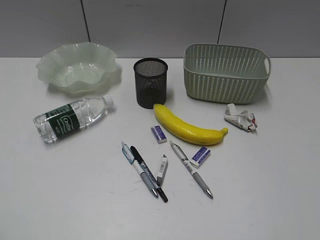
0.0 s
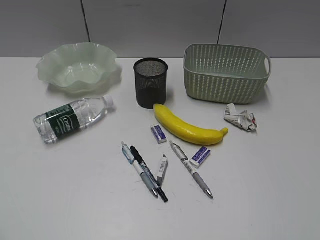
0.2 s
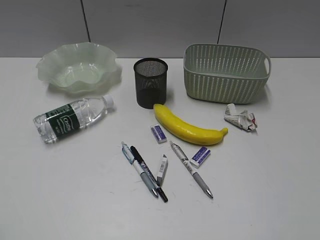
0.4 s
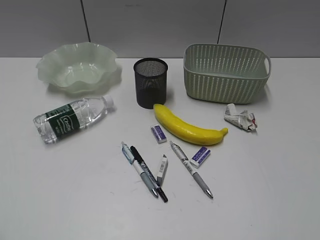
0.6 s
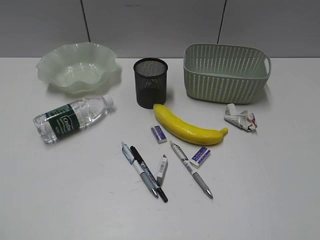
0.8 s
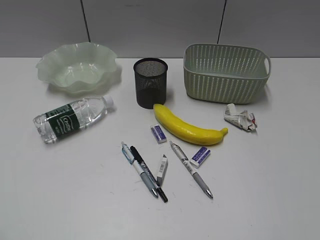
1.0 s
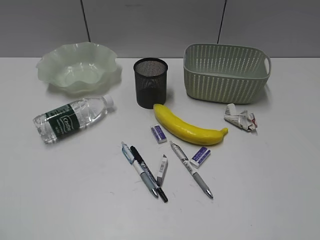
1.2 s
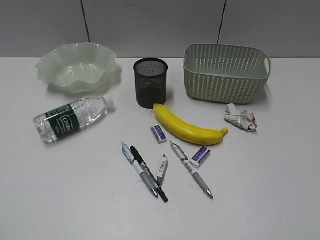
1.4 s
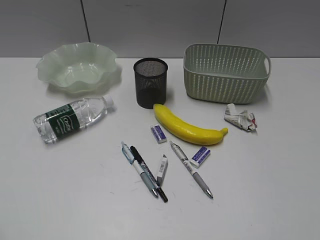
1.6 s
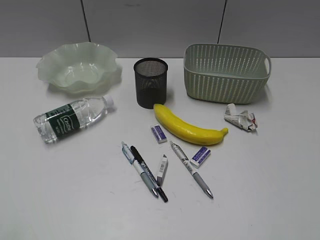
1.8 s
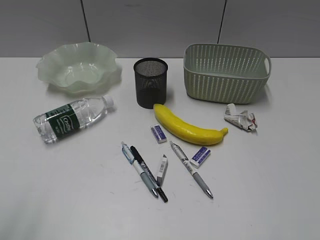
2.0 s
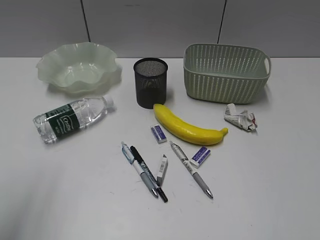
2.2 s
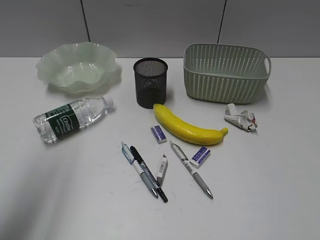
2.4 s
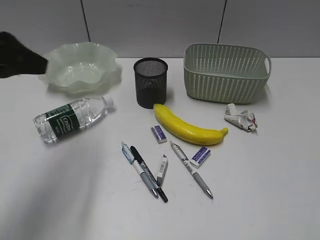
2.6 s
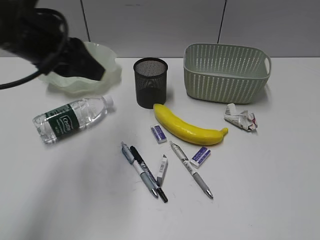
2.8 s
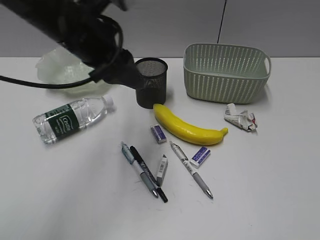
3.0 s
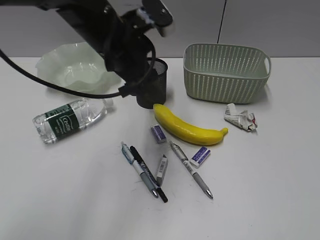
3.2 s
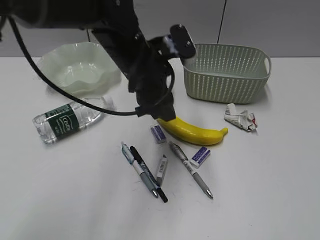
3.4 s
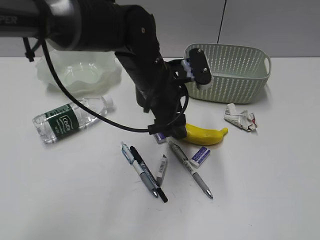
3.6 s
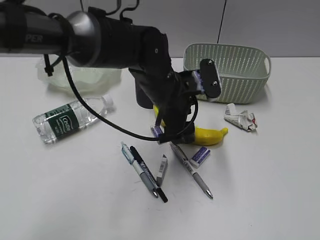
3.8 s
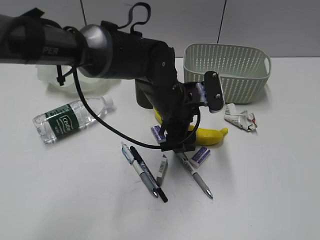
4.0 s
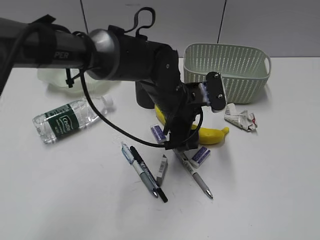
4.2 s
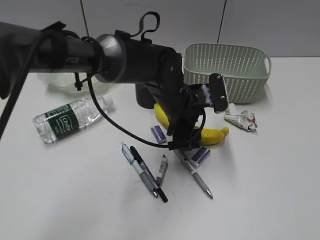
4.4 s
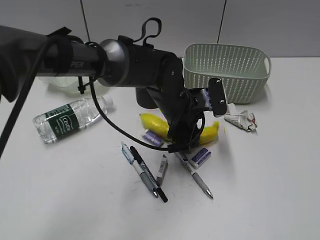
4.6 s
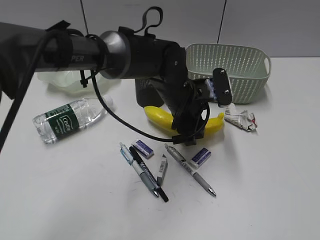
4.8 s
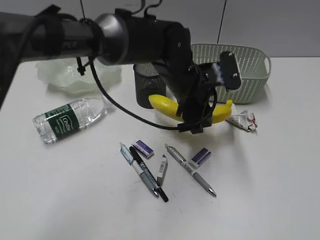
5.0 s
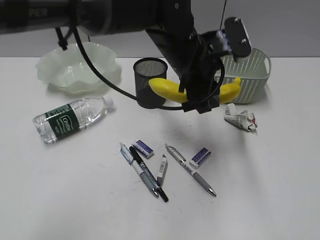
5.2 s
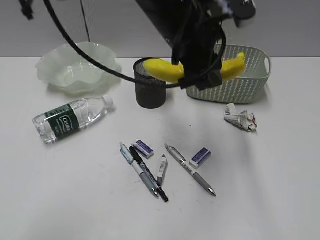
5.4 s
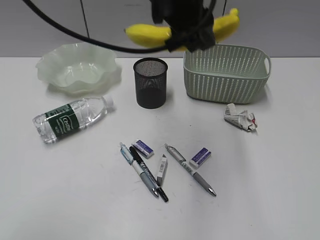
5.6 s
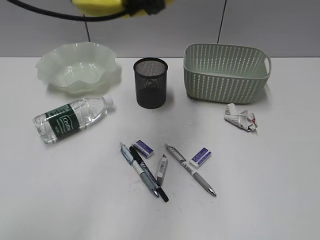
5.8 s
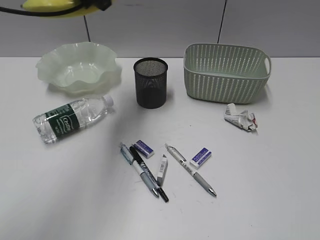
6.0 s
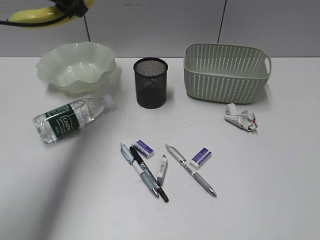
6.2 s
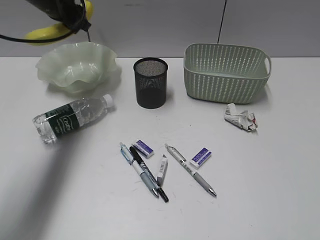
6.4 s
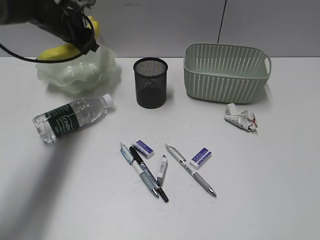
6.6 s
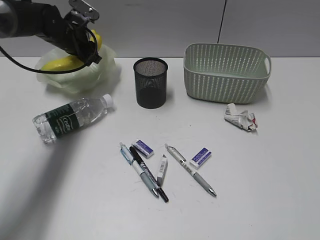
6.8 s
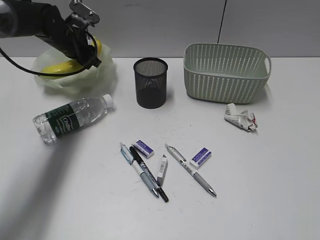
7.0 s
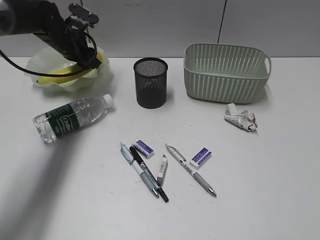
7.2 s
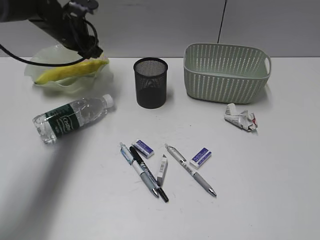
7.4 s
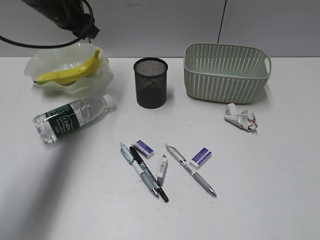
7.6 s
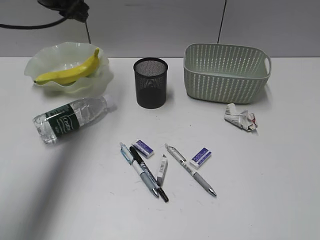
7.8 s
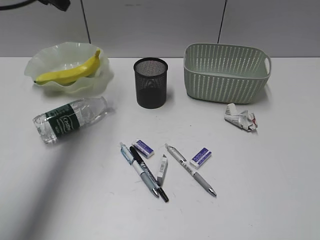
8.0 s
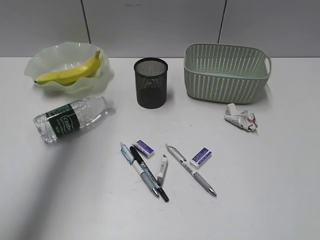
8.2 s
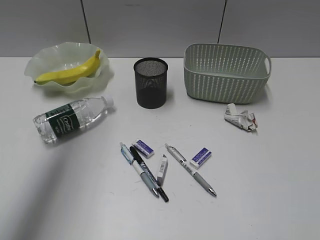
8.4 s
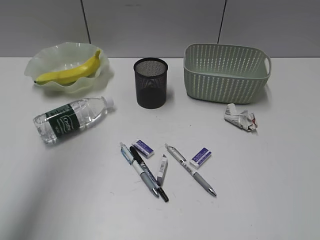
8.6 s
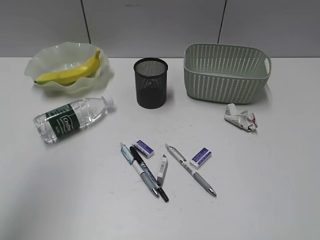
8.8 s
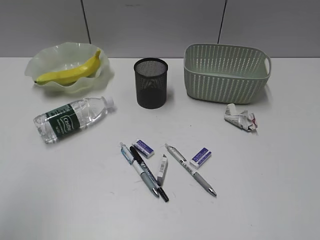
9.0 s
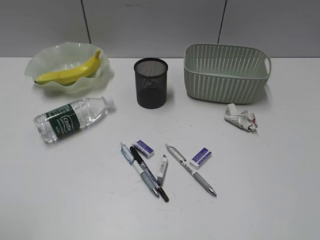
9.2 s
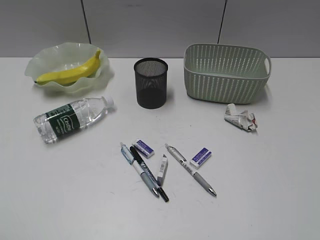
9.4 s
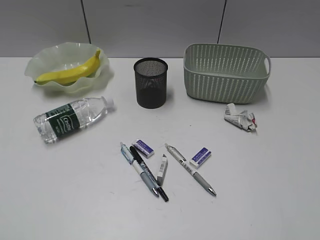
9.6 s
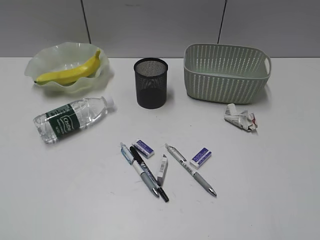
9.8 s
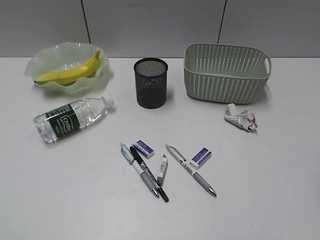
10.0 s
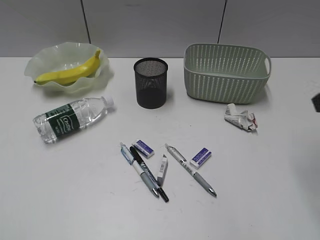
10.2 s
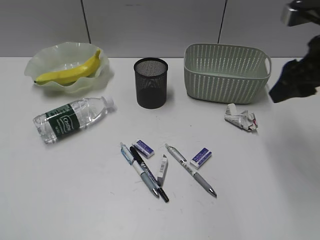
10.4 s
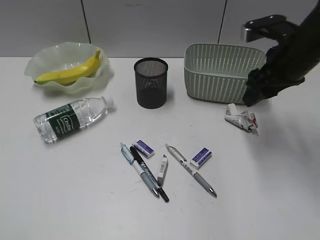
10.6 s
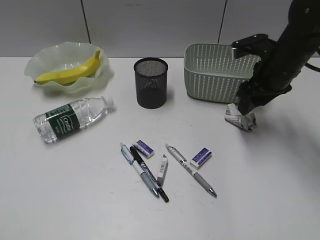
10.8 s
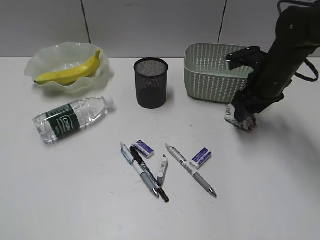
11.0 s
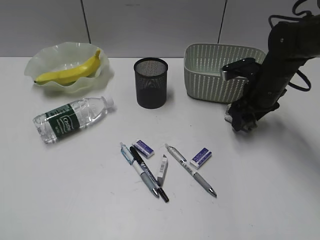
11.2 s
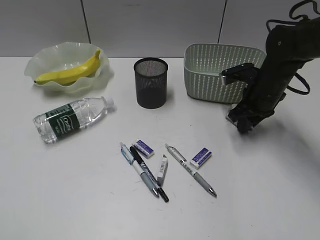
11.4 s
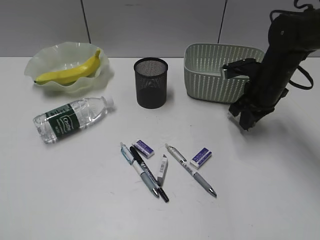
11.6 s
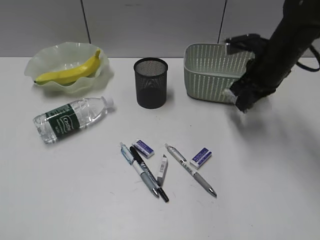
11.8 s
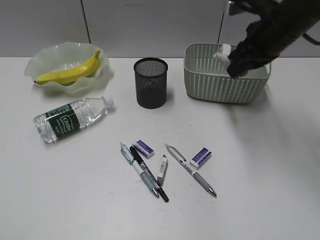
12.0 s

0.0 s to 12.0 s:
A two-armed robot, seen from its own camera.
Step, 1.6 to 4.6 s: Grasp the banana with left gripper.
Step, 4.8 to 7.4 s: Place the banana in the plate with left gripper.
Step, 7.6 to 11.4 s: Grasp the waste paper with right gripper.
1.6 to 3.0 s: The left gripper is displaced forward and to the right by roughly 40 cm, and opens.
3.0 to 4.4 s: The left gripper is displaced to the right and downward by about 20 cm.
4.4 to 6.0 s: The left gripper heads upward and to the left, covering about 25 cm, and closes its fingers.
6.0 to 7.6 s: The left gripper travels downward, forward and to the left by roughly 20 cm.
7.6 to 9.0 s: The left gripper shifts roughly 40 cm backward.
9.0 to 10.4 s: The right gripper is displaced forward by about 30 cm. The left gripper is displaced downward and backward by about 15 cm.
10.4 to 12.0 s: The right gripper goes approximately 10 cm forward and to the left, moves approximately 15 cm downward and comes back, and closes up.

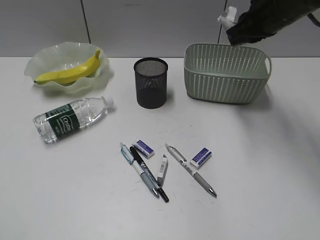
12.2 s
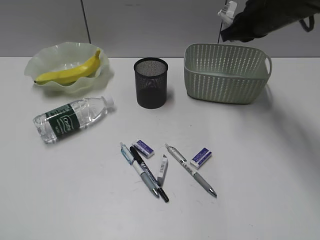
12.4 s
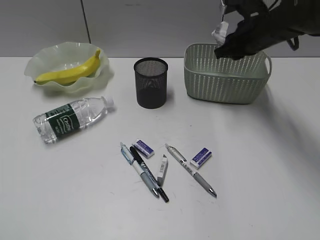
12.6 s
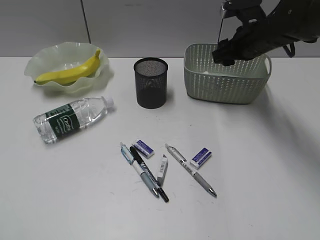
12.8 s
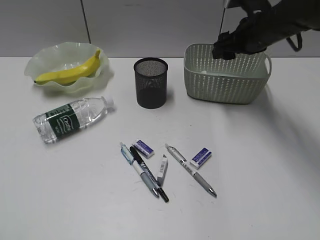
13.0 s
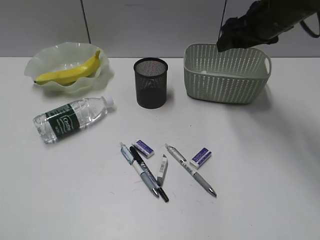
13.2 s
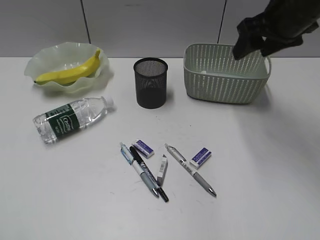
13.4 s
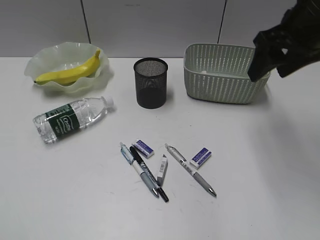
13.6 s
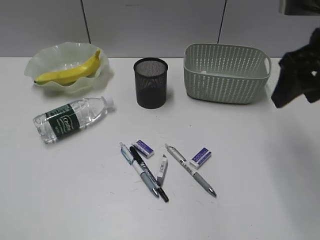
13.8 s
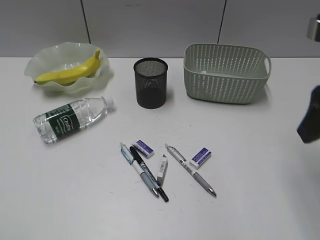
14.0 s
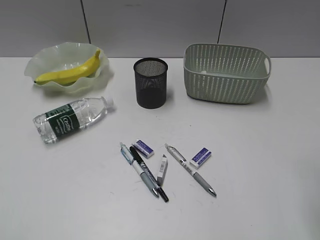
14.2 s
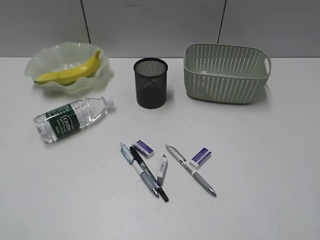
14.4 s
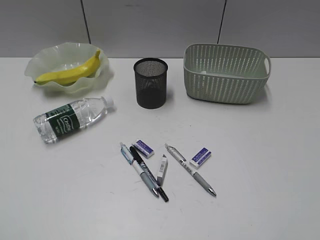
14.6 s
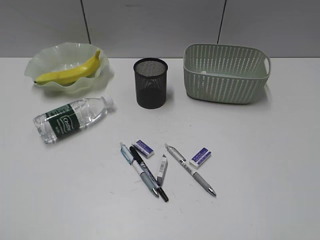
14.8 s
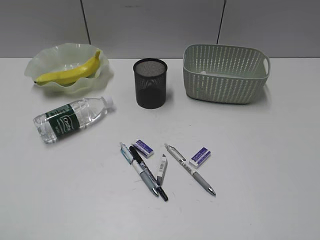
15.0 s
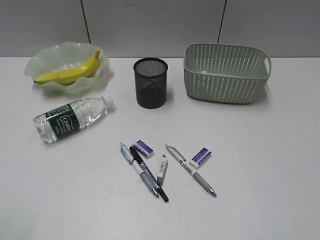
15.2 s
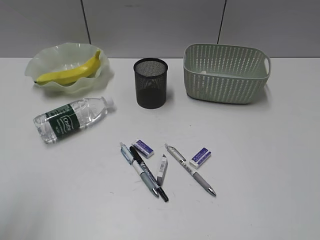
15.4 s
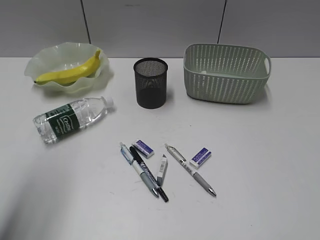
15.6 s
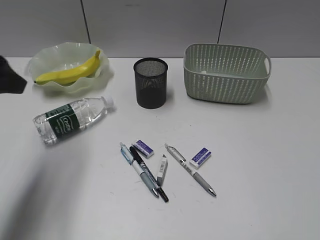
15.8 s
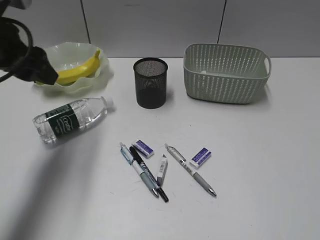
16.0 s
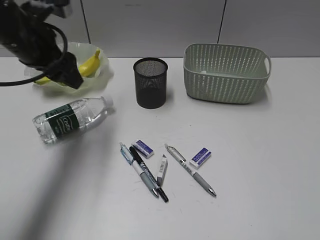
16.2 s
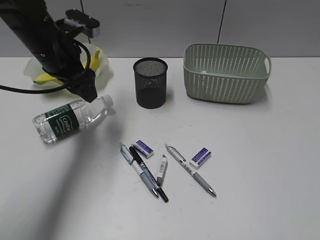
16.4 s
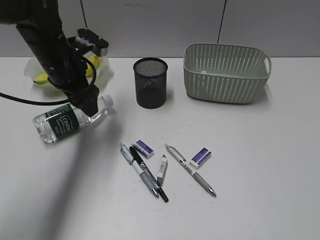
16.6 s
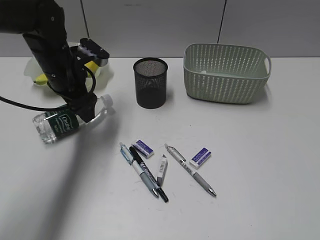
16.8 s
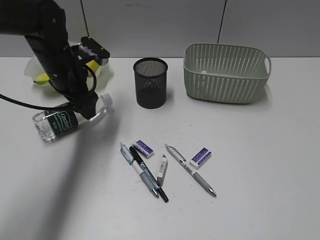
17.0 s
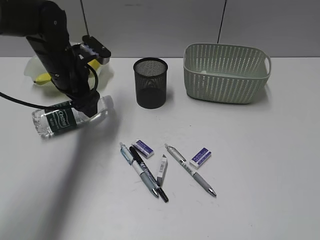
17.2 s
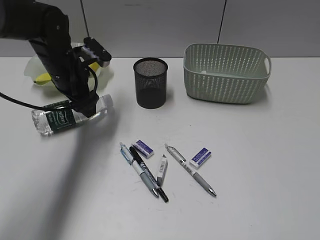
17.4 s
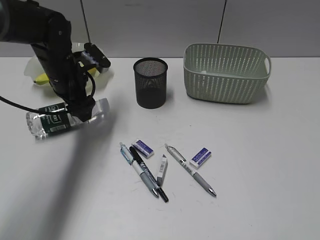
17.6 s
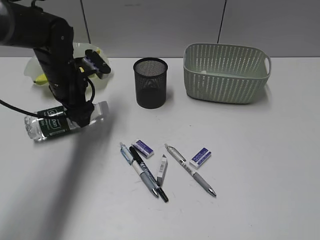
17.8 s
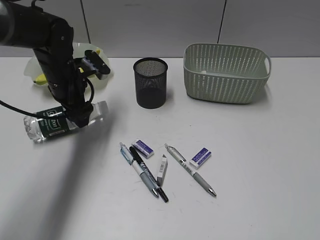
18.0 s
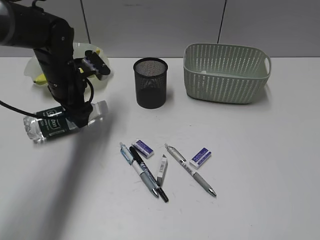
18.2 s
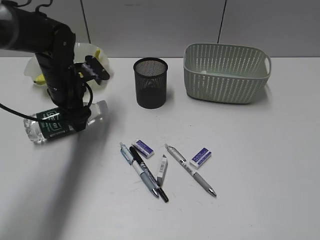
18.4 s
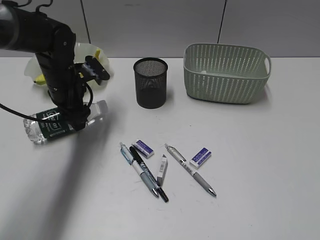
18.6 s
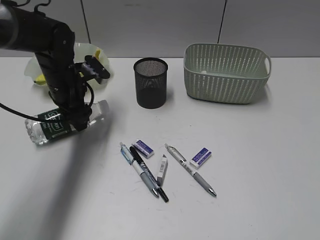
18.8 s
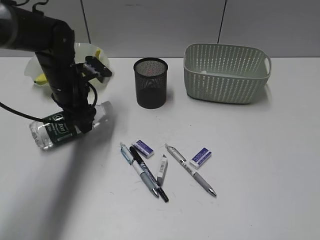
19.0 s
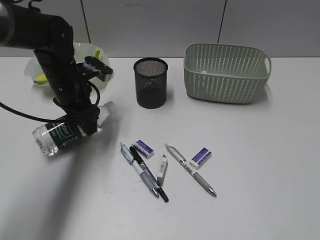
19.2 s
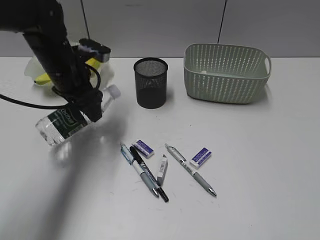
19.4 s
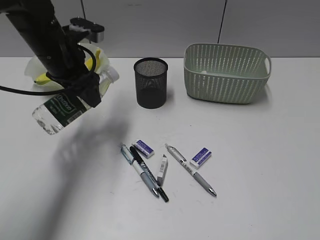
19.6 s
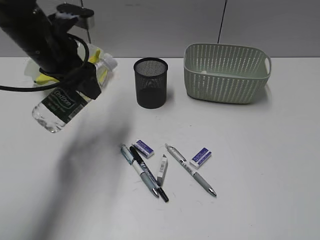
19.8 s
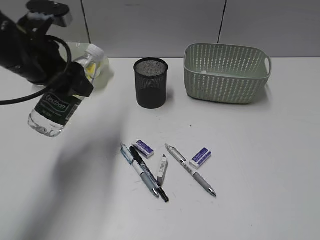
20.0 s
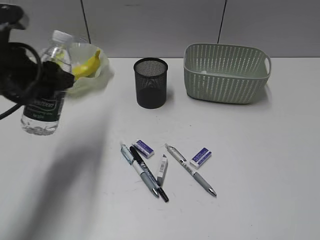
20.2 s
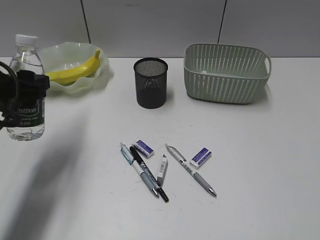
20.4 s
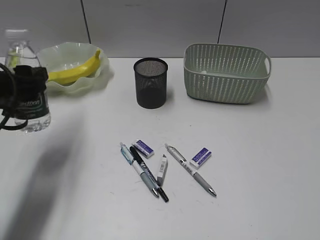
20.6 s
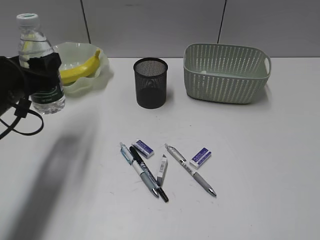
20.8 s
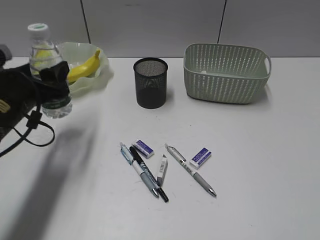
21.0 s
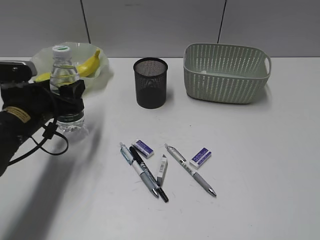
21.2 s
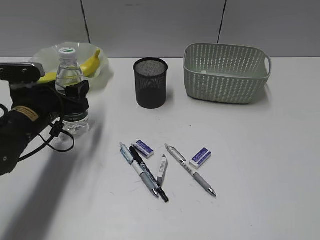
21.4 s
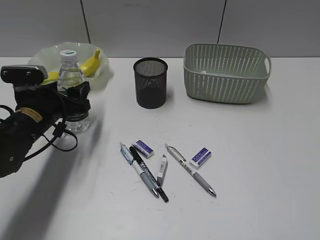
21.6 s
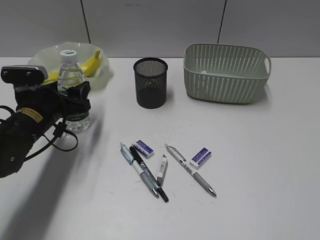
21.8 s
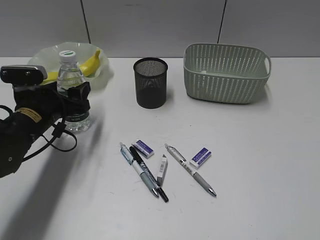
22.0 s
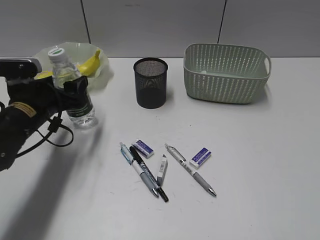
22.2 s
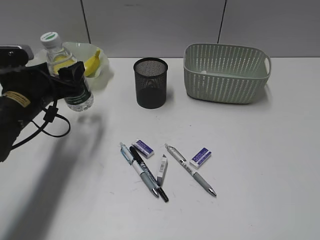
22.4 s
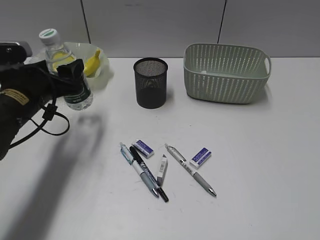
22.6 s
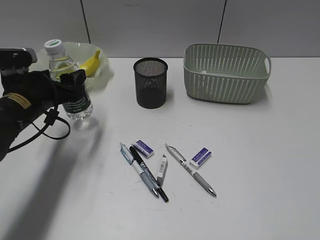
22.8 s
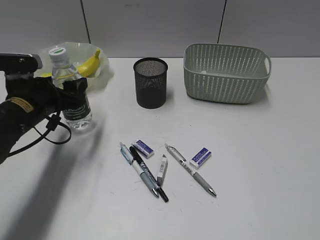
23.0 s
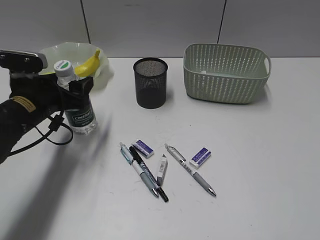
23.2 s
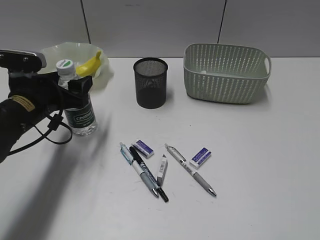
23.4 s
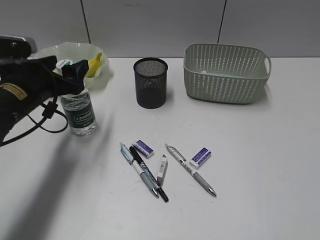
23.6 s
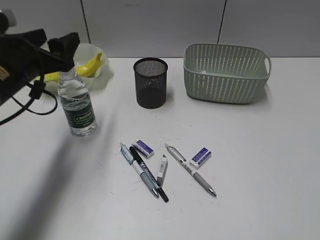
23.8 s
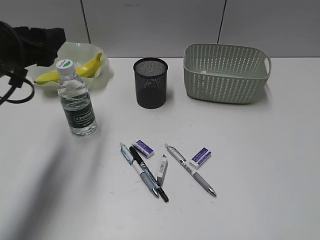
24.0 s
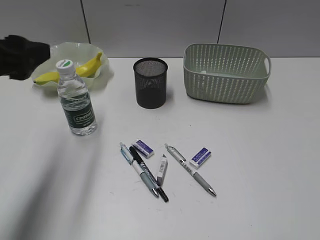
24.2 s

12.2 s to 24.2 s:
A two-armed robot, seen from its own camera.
Step, 13.0 to 18.6 s: Grasp the bottle with left gripper.
Step, 18.8 to 23.6 s: Stand the bottle with left gripper.
12.2 to 13.8 s: The right gripper moves backward, roughly 10 cm, and opens up.
13.8 to 15.2 s: The right gripper goes about 30 cm backward.
15.2 to 16.6 s: The left gripper goes approximately 35 cm forward, and opens its fingers.
16.6 to 18.2 s: The left gripper is displaced downward by roughly 5 cm.
18.2 to 19.8 s: The left gripper shifts some 10 cm upward.
19.8 to 21.2 s: The left gripper moves downward and backward, approximately 15 cm.
21.2 to 22.6 s: There are only small adjustments of the grippers.
22.6 to 24.2 s: The left gripper shifts some 15 cm upward and backward.
